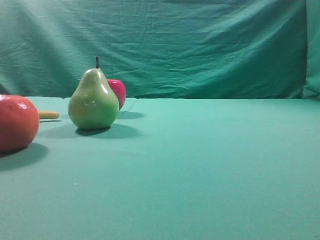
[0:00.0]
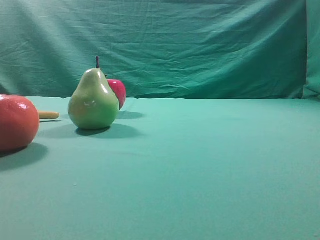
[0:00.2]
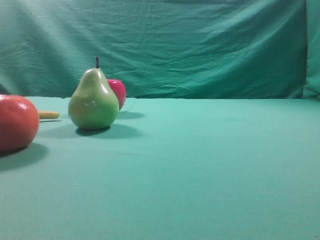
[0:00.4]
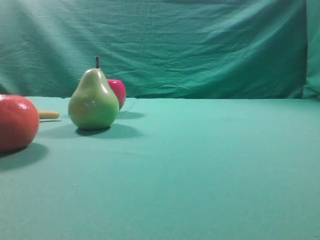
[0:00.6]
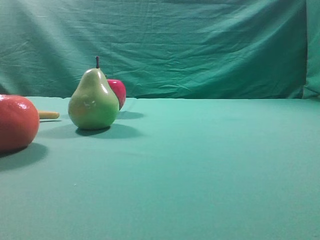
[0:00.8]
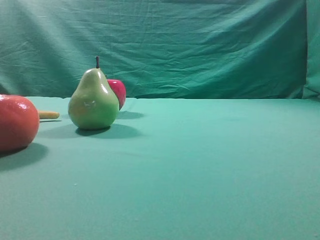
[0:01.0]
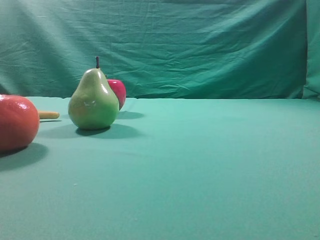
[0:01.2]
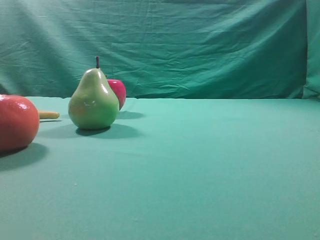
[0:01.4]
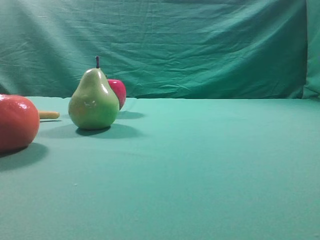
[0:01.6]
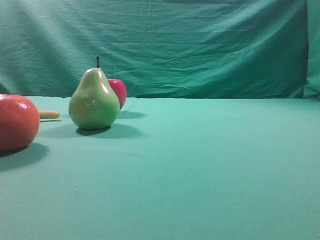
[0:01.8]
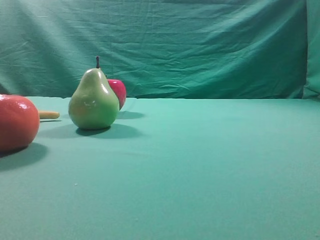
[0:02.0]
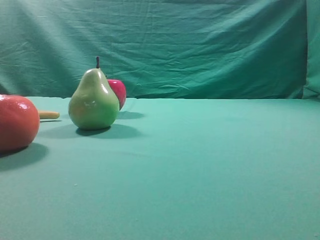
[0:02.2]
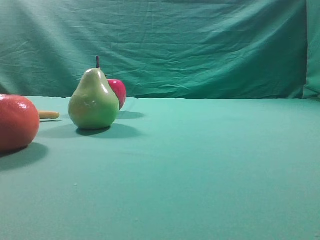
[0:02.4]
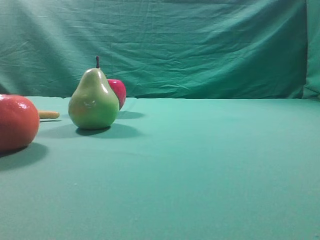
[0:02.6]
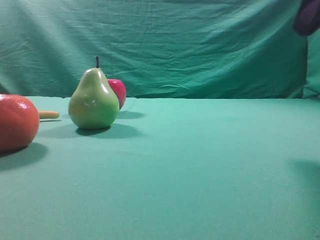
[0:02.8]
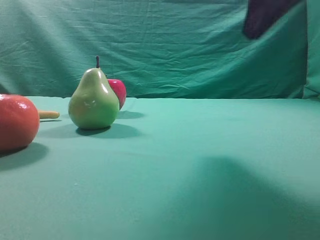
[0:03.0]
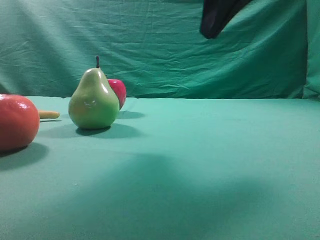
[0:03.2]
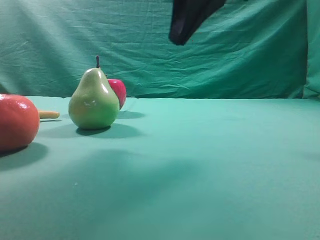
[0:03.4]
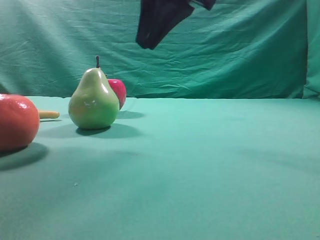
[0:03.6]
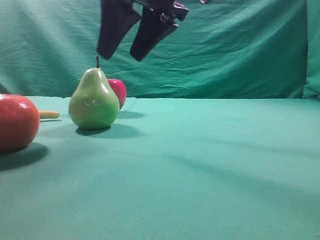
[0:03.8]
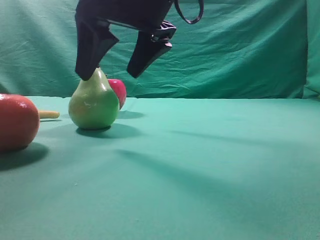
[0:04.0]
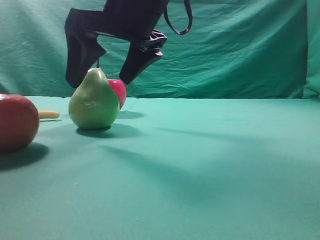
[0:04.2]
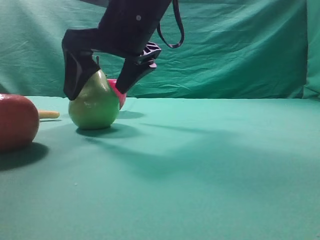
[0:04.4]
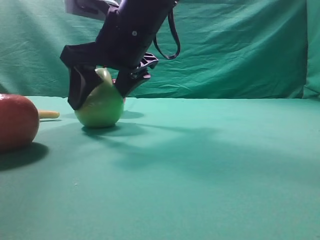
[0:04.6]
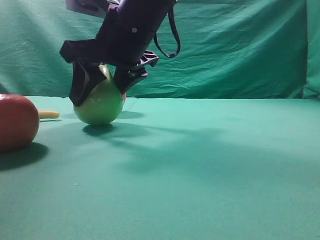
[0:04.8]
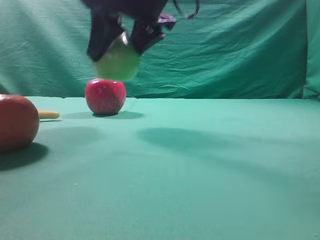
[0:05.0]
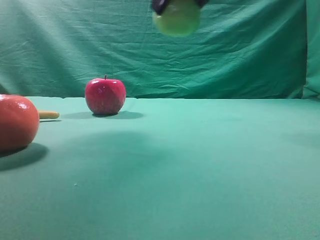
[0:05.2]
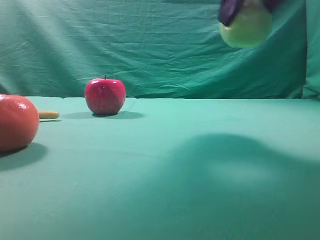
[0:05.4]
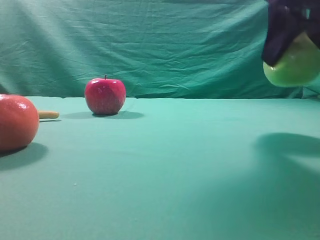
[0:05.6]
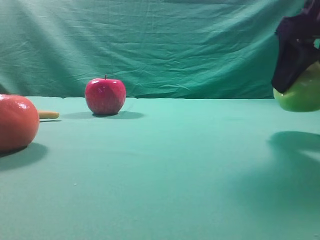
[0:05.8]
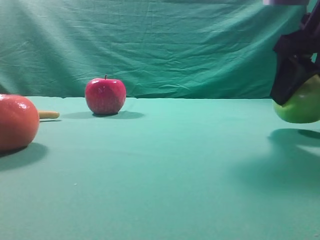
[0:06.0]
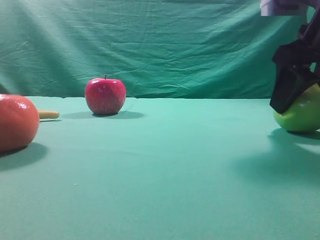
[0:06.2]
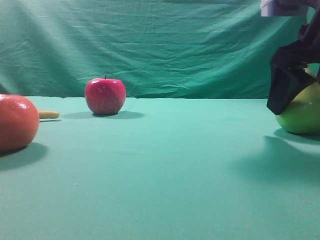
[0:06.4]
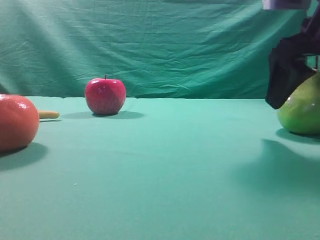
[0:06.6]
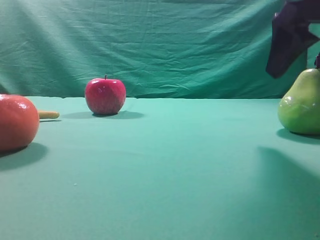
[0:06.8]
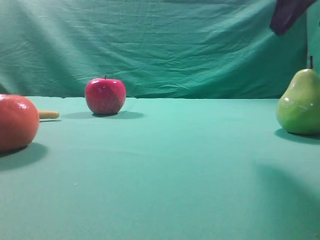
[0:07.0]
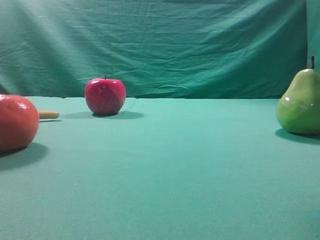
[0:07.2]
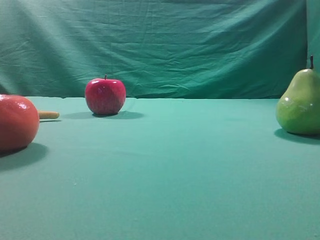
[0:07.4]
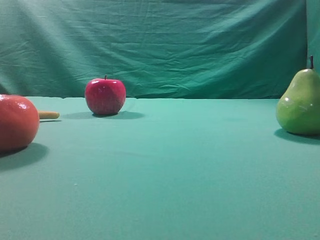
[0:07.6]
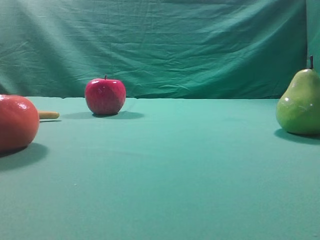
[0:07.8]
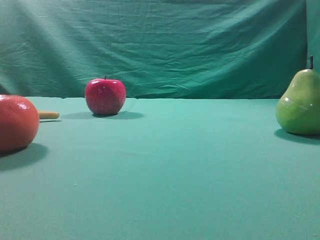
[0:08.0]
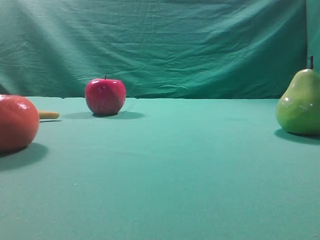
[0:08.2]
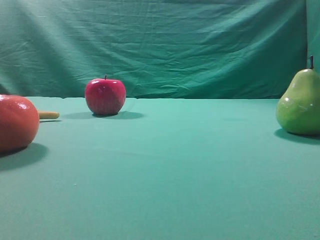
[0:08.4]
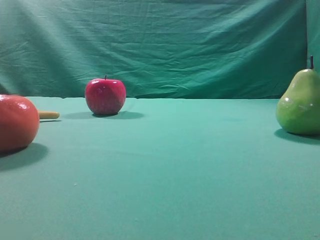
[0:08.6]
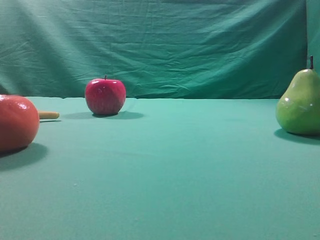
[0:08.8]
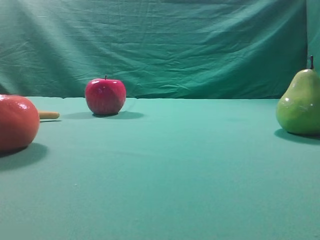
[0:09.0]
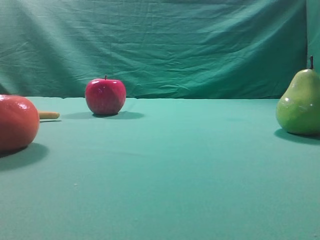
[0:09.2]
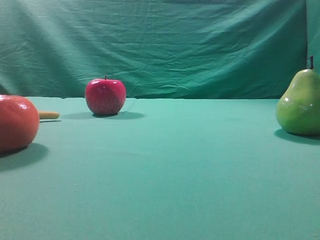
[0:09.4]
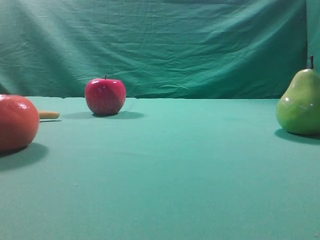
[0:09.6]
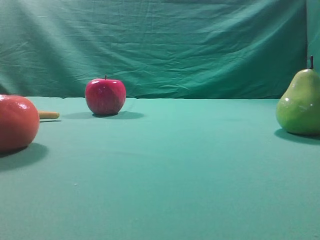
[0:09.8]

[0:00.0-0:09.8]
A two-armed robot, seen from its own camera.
Task of the whole recording: Grasp the pear and place it on one side of the table.
Step, 0:00.0 to 0:04.8: Grasp the high-fiber fruit.
Step, 0:05.0 to 0:06.8: Place it on the right side of the table.

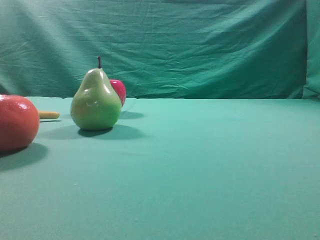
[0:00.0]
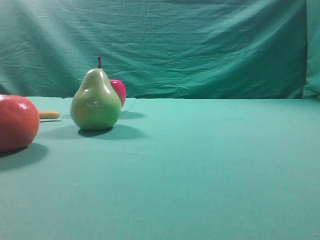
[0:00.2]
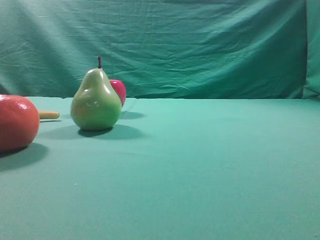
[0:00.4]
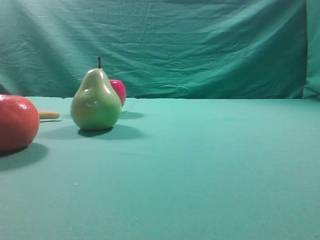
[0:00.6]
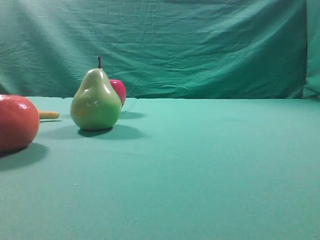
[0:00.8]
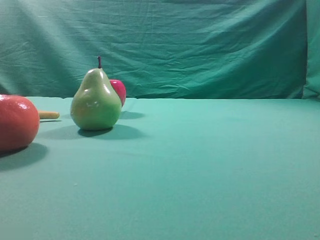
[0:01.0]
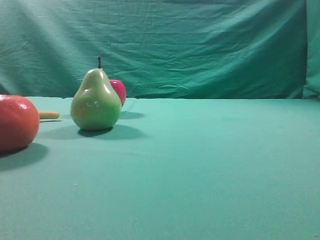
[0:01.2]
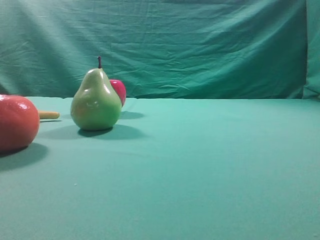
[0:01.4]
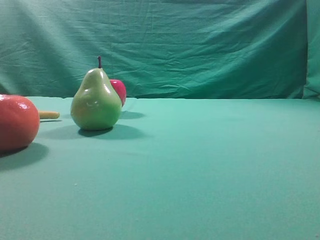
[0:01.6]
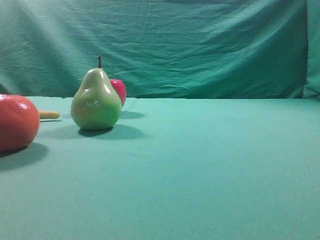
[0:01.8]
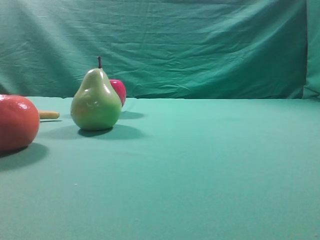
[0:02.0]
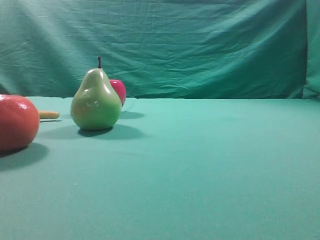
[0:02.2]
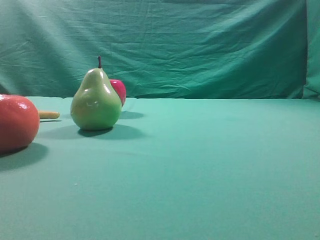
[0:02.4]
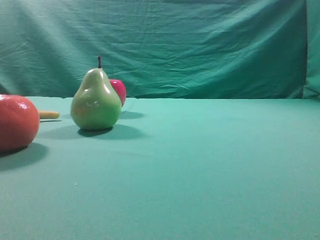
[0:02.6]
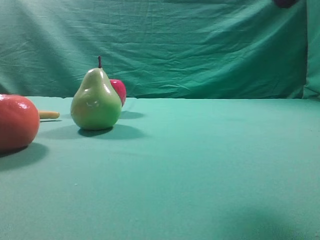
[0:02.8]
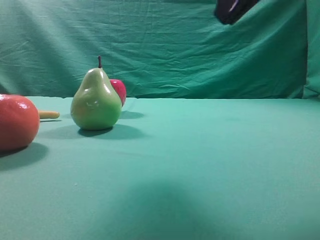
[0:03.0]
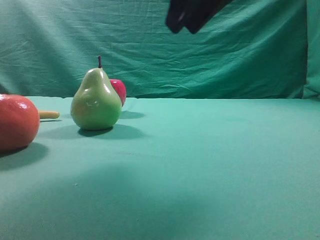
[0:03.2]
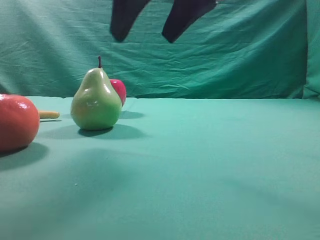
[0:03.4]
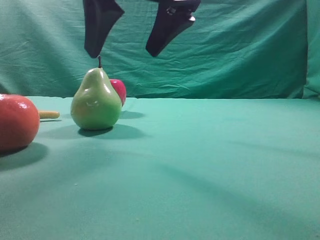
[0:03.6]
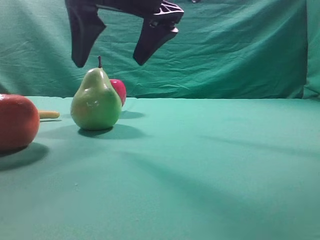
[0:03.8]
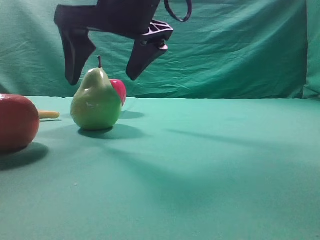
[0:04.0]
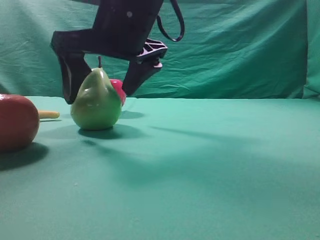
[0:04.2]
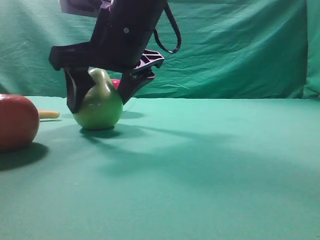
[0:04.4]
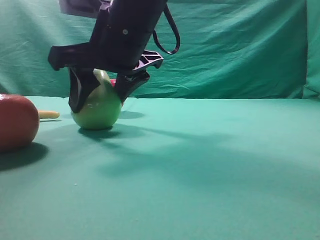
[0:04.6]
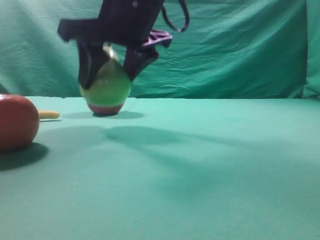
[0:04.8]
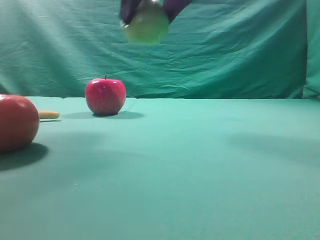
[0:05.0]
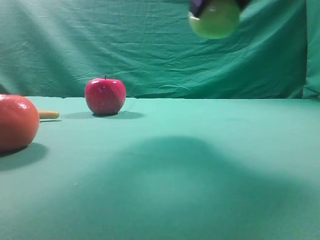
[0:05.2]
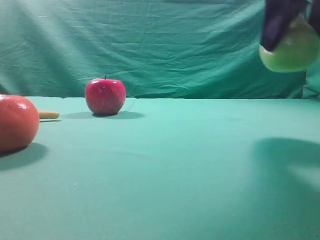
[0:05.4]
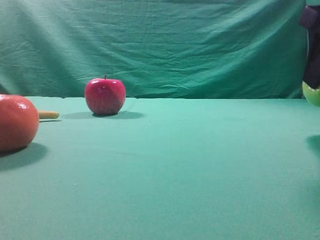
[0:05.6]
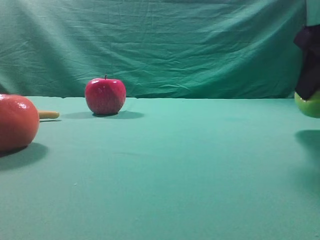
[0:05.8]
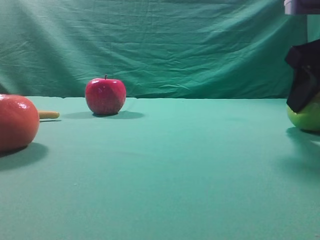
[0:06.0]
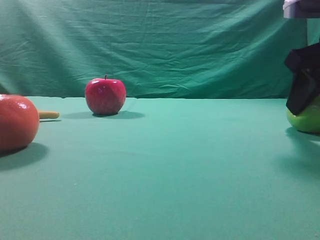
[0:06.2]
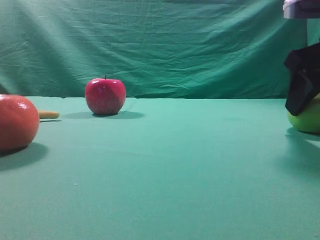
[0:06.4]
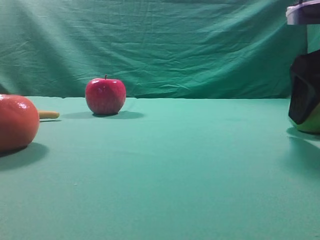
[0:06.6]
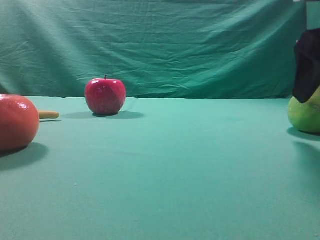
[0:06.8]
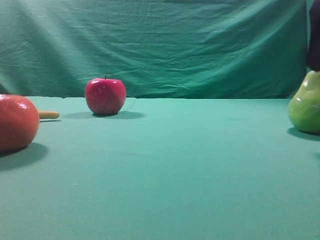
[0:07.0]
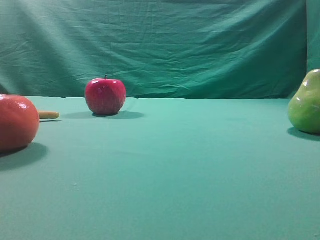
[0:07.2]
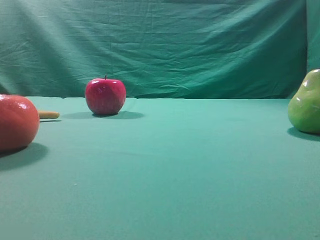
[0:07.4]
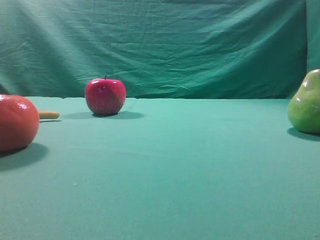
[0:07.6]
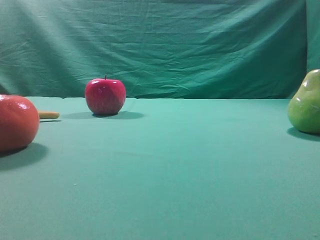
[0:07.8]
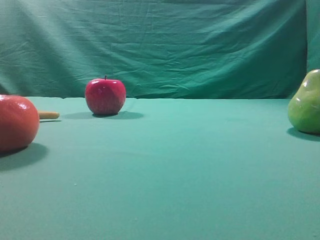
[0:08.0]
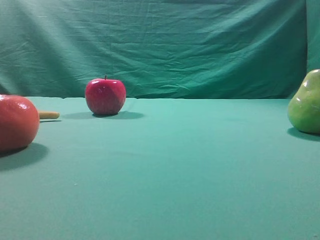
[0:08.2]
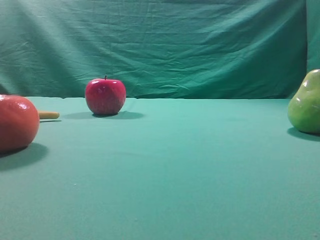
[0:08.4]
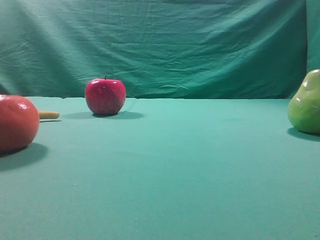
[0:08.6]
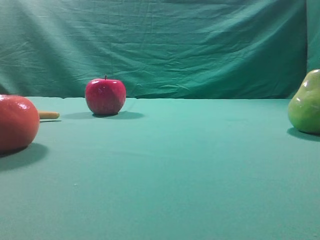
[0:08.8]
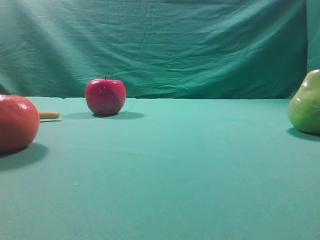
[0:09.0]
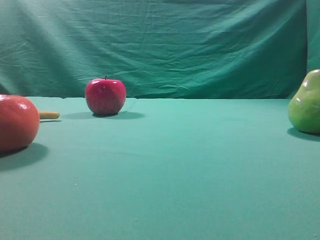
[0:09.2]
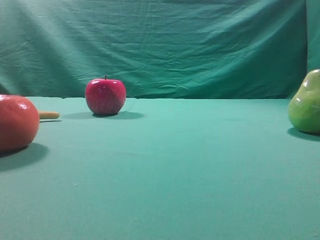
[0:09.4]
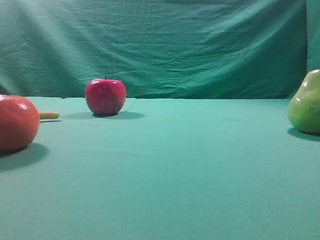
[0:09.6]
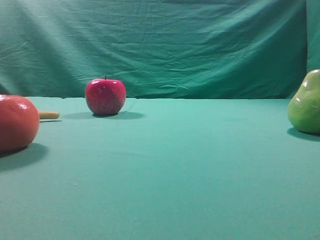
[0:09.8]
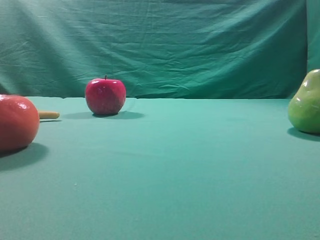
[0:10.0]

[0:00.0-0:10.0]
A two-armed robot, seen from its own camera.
Task of the whole recording: Grasp the pear and place it on one side of the table.
Step, 0:00.0 to 0:04.8: Grasp the high-fiber fruit.
Step, 0:05.0 to 0:07.0: Place it on the right side of the table.

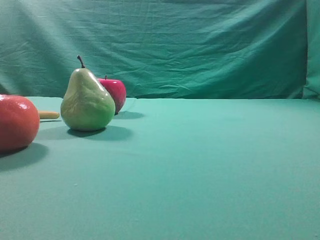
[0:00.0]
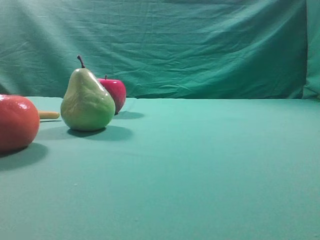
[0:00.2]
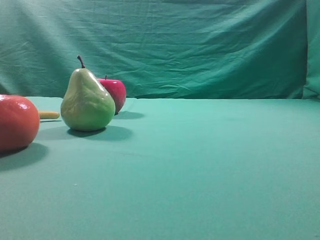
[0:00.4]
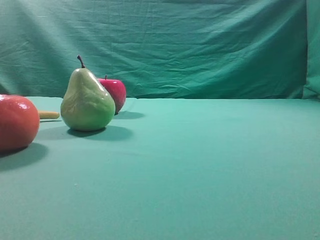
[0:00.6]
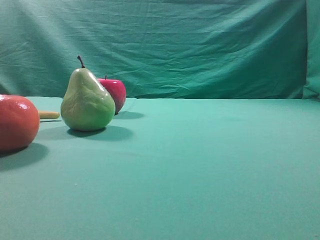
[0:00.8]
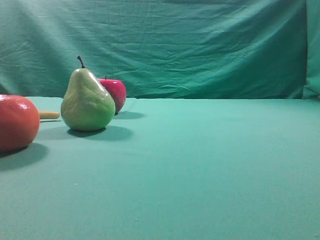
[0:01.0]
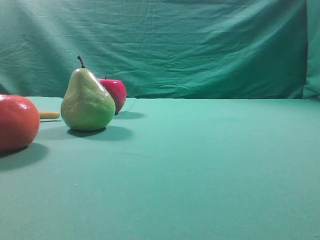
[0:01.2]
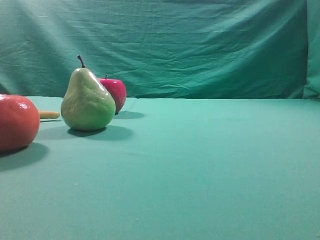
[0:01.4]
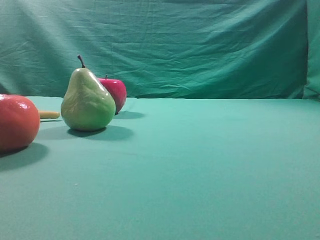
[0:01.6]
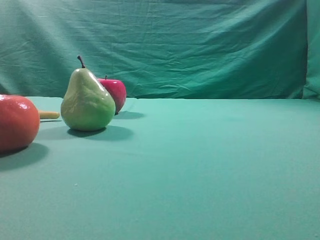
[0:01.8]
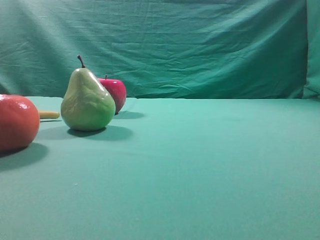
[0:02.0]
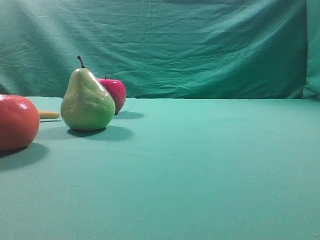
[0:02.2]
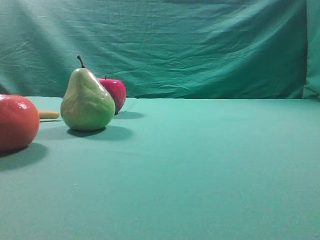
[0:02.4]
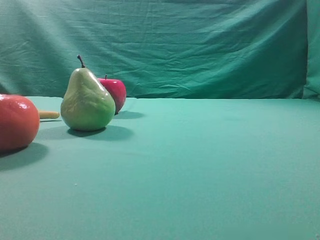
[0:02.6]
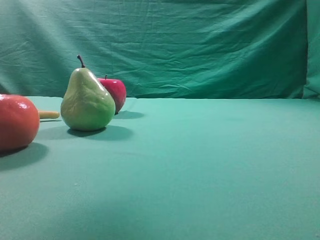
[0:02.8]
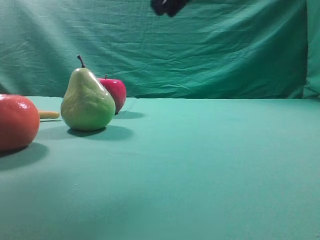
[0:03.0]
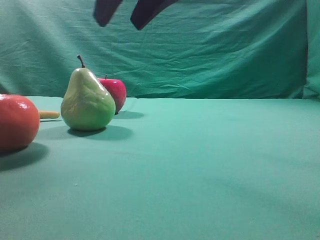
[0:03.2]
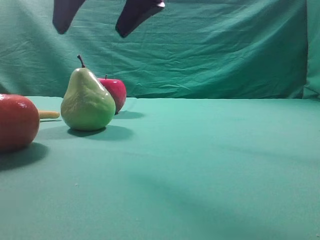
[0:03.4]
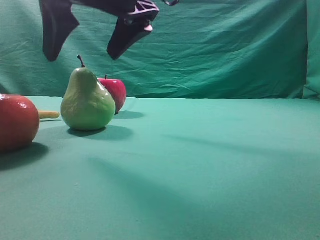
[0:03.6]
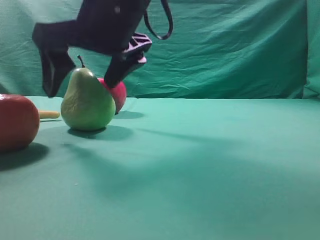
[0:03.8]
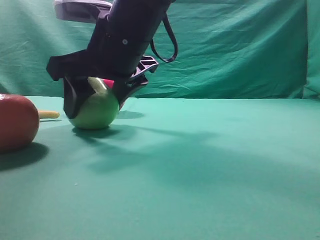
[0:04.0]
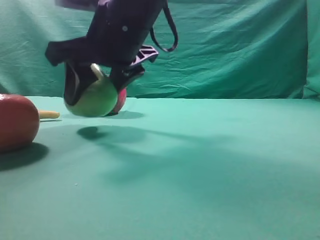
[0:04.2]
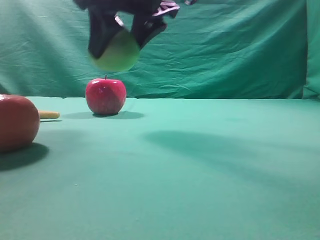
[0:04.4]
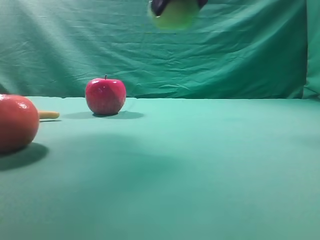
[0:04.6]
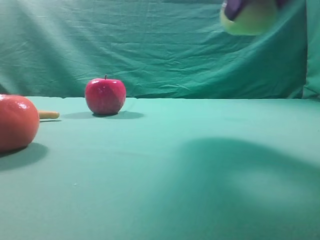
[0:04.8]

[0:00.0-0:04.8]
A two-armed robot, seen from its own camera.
Task of the whole recording: Grasp the pear and place it on one side of the table.
Step, 0:00.0 to 0:04.2: Grasp the high-fiber fruit.
